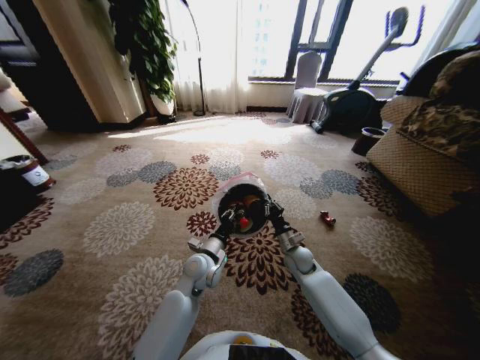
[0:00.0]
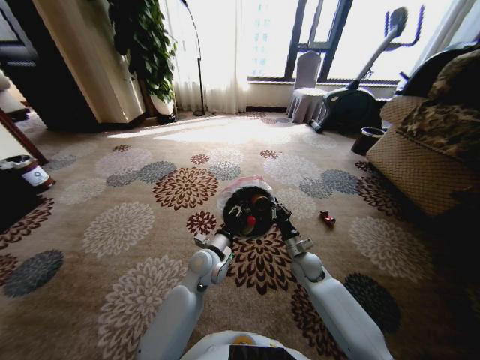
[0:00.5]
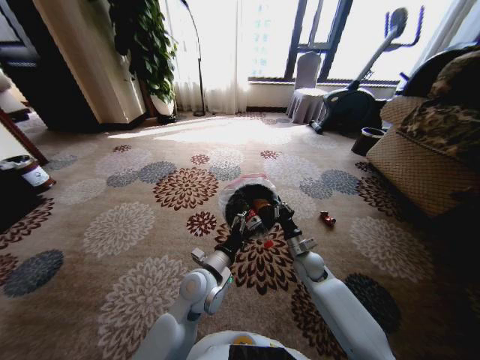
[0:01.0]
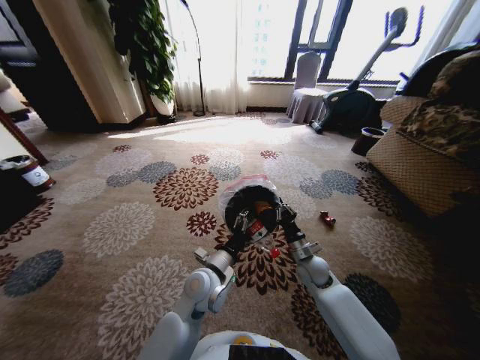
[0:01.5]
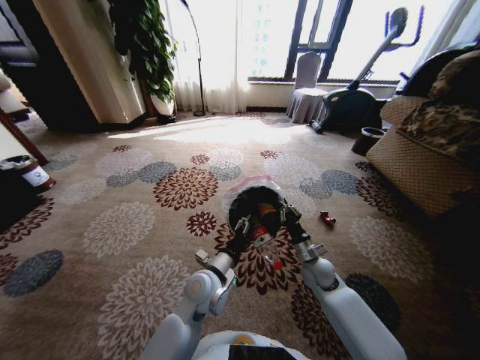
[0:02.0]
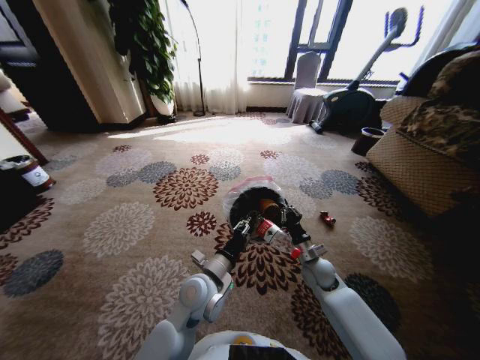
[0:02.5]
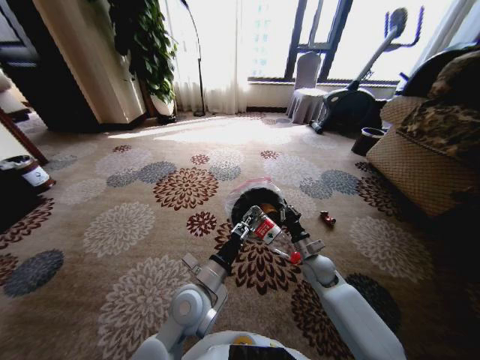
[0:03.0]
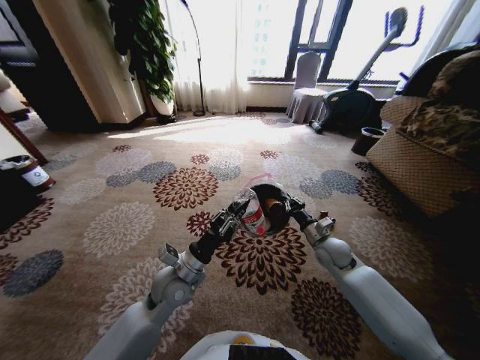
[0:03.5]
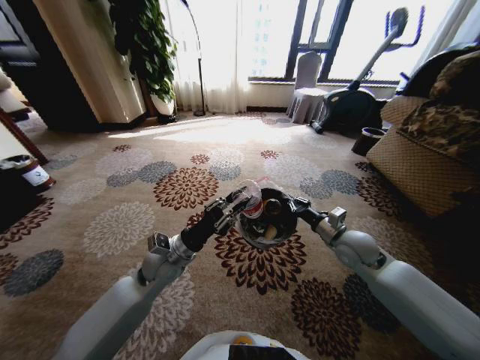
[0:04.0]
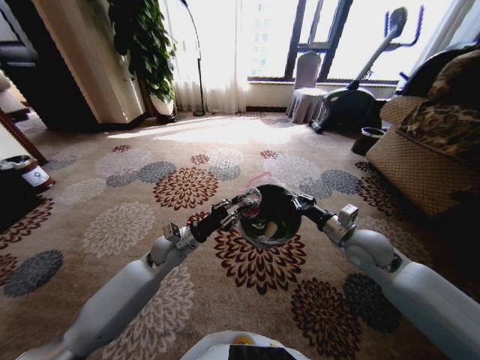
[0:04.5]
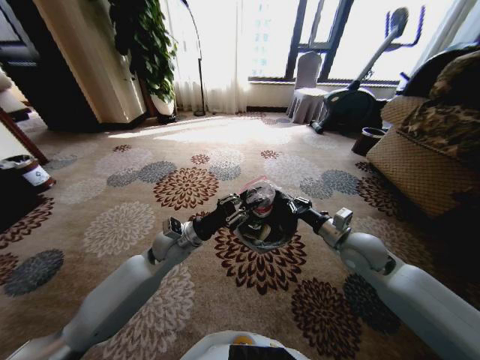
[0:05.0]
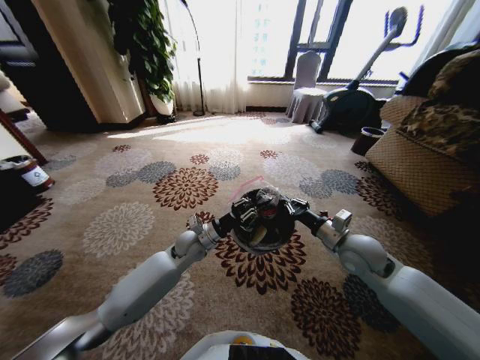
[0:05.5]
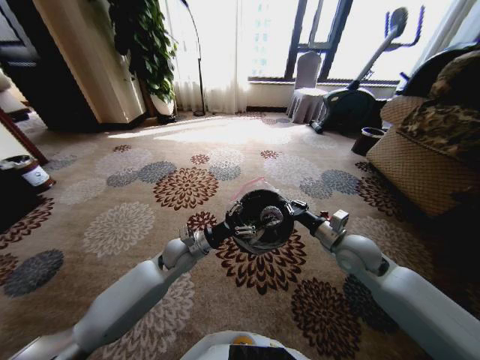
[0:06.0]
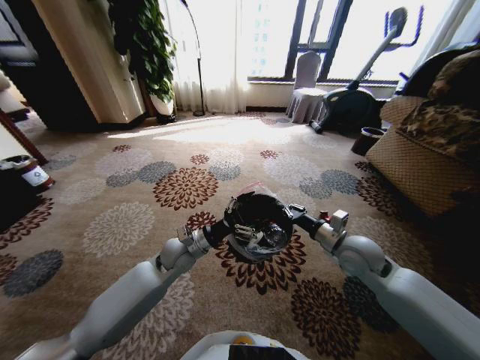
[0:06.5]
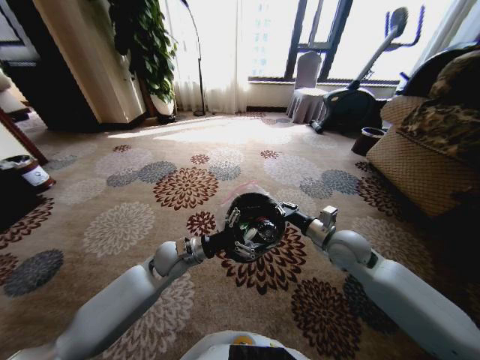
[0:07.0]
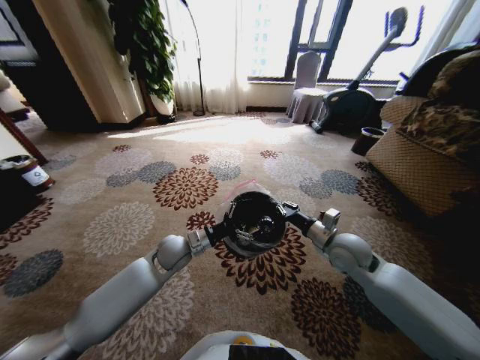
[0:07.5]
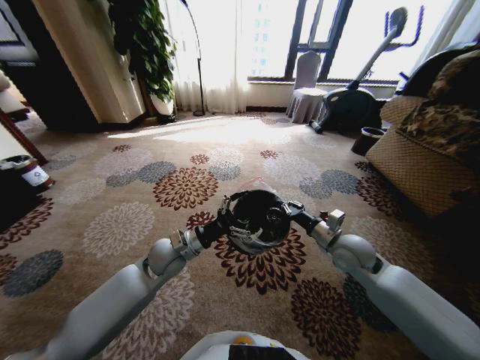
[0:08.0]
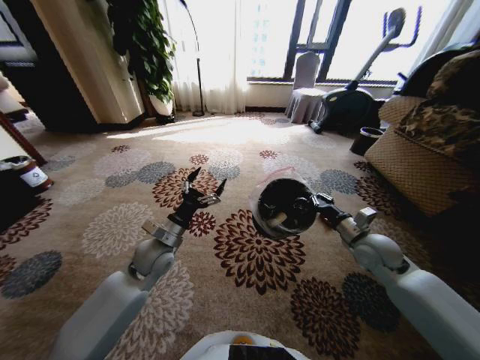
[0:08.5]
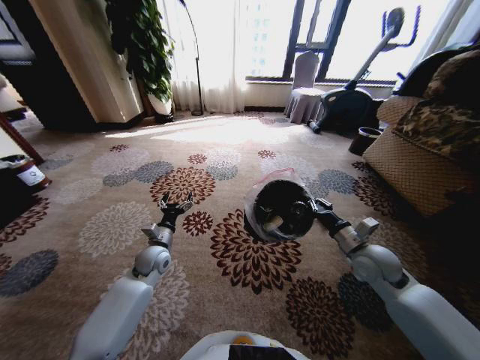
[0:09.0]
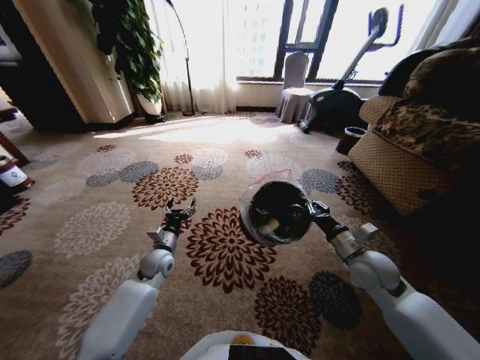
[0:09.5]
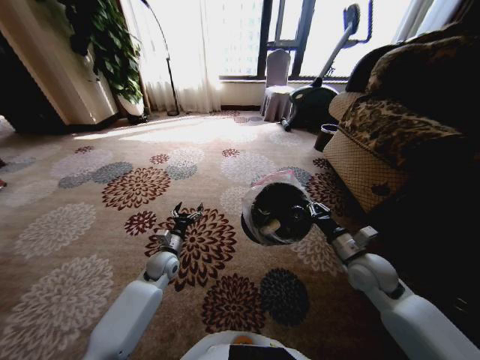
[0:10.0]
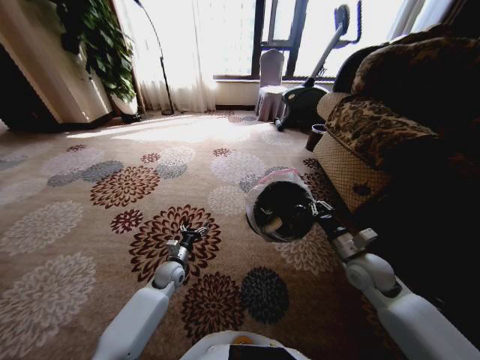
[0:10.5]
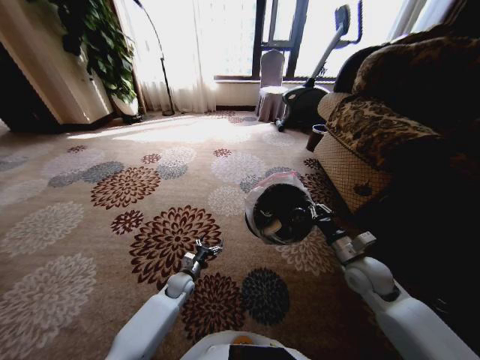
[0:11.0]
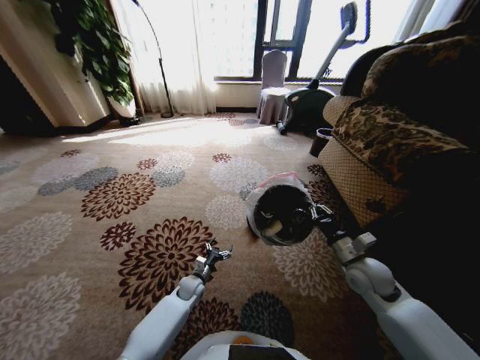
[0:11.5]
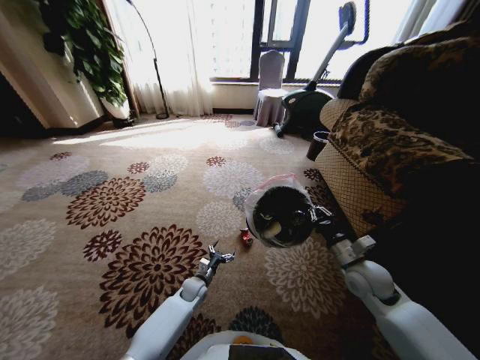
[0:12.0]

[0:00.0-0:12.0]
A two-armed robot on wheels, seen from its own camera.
Task of the whole recording: Pick up the trash from the ground and place it into the trash bin.
0:00.0 to 0:02.0: Both grippers move backward, roughly 5 cm. The left gripper opens.
0:02.0 to 0:04.0: The left gripper goes about 10 cm to the left, and closes its fingers; the right gripper is displaced upward and to the right by some 15 cm.
0:04.0 to 0:06.0: The left gripper heads forward, covering roughly 5 cm, and opens.
0:06.0 to 0:08.0: The left gripper moves approximately 5 cm.
0:08.0 to 0:10.0: The left gripper shifts about 15 cm downward and to the left. The right gripper ends up some 5 cm from where it was.
0:10.0 to 0:12.0: The left gripper is displaced downward and to the right by some 20 cm.

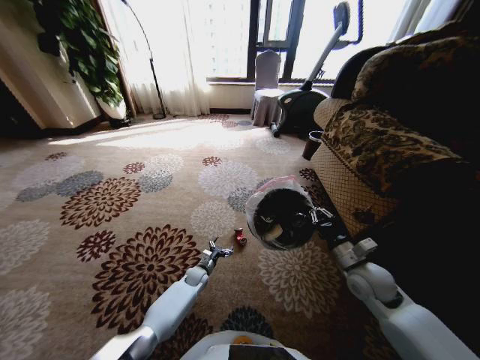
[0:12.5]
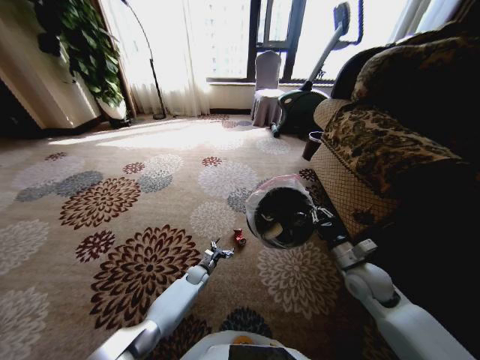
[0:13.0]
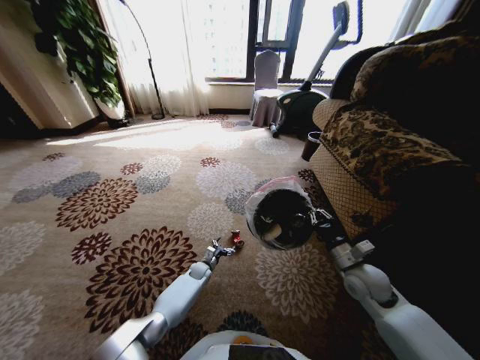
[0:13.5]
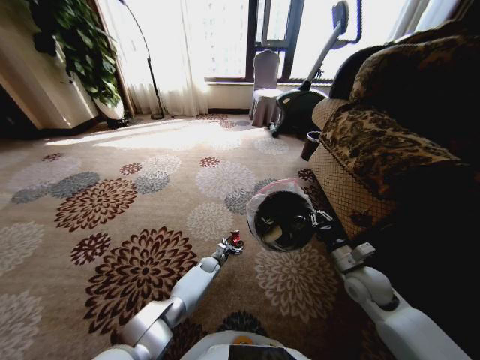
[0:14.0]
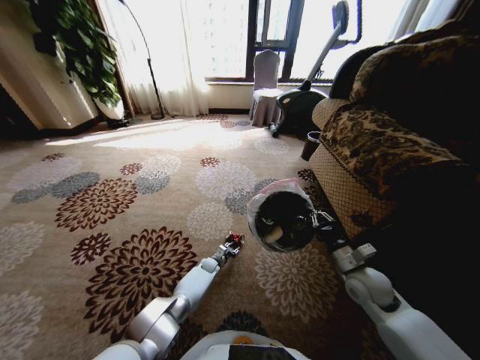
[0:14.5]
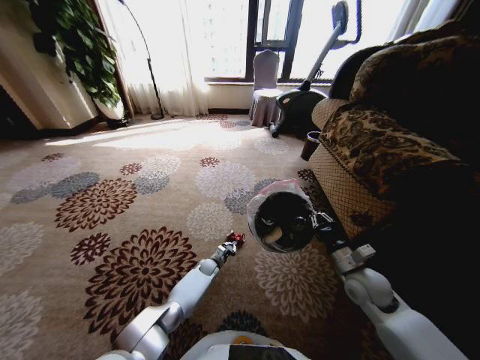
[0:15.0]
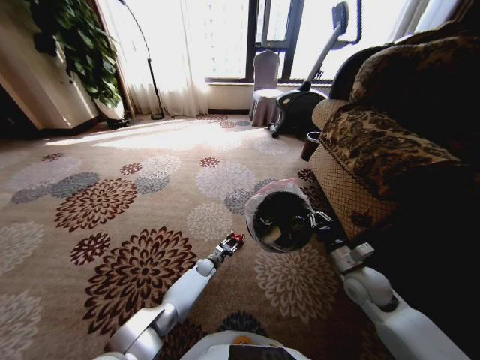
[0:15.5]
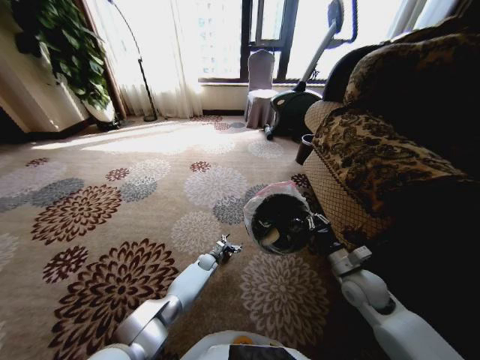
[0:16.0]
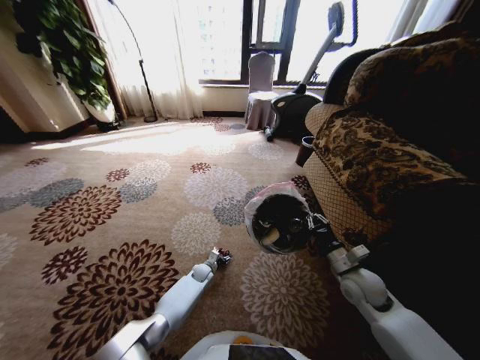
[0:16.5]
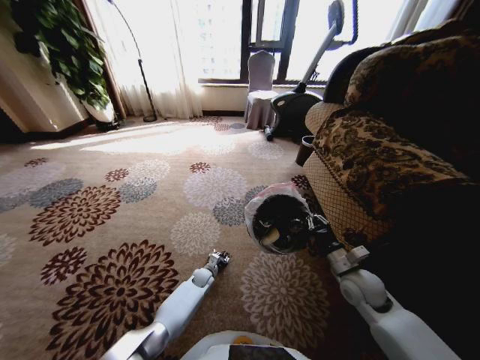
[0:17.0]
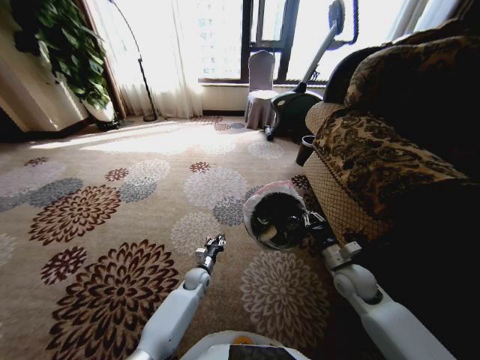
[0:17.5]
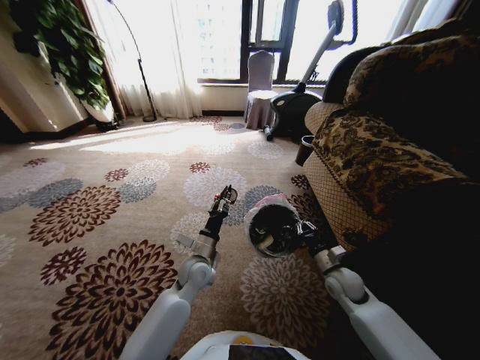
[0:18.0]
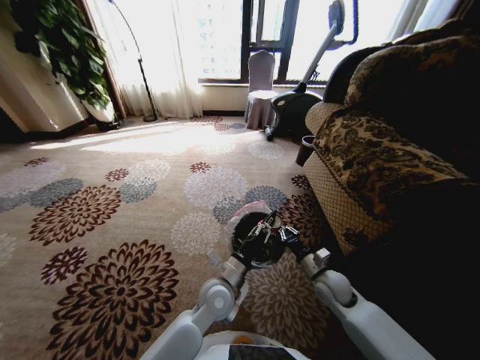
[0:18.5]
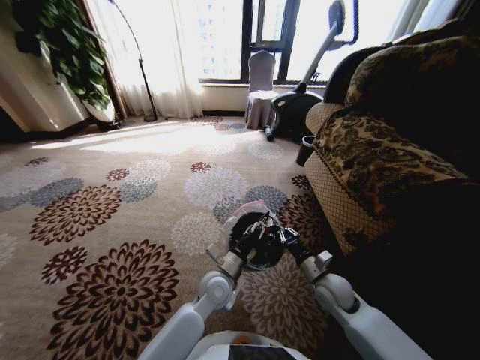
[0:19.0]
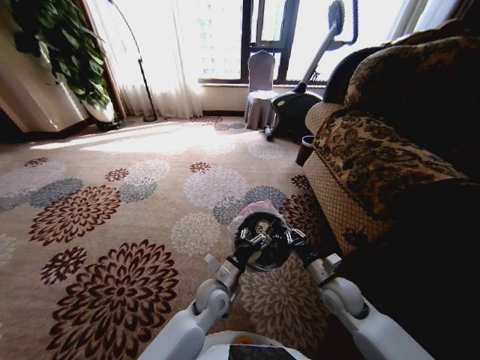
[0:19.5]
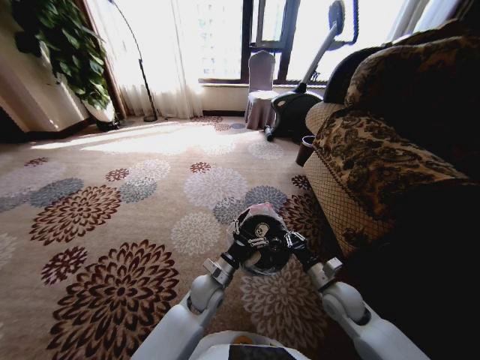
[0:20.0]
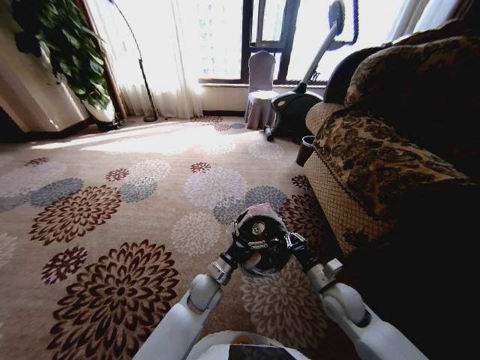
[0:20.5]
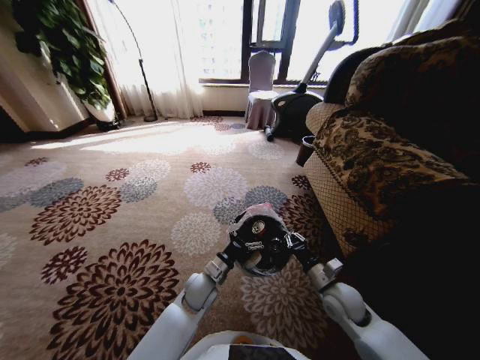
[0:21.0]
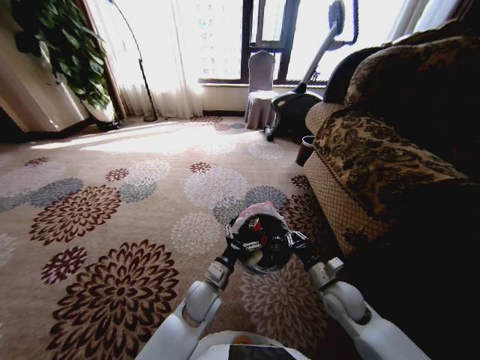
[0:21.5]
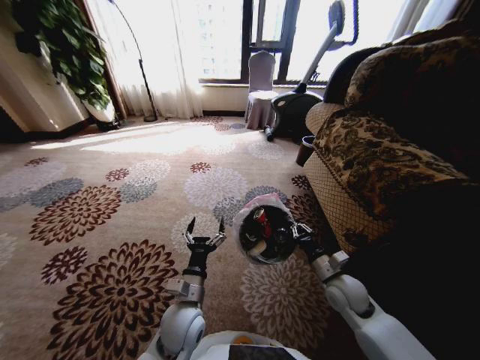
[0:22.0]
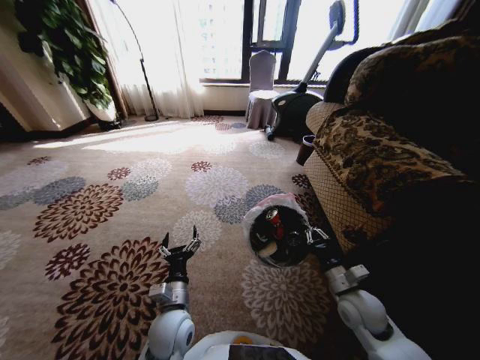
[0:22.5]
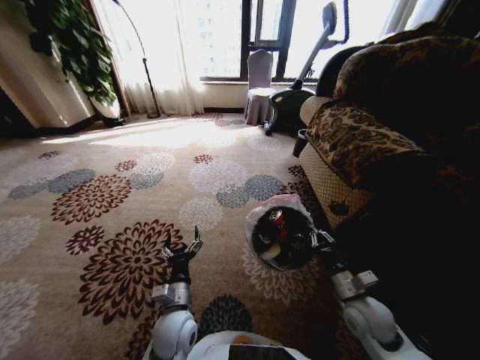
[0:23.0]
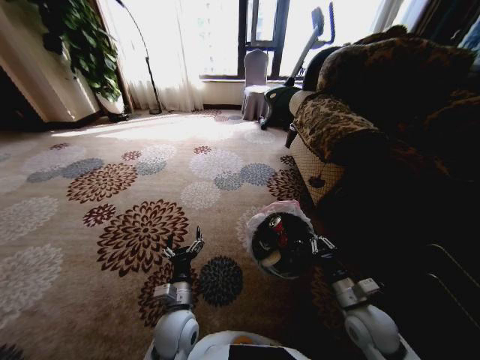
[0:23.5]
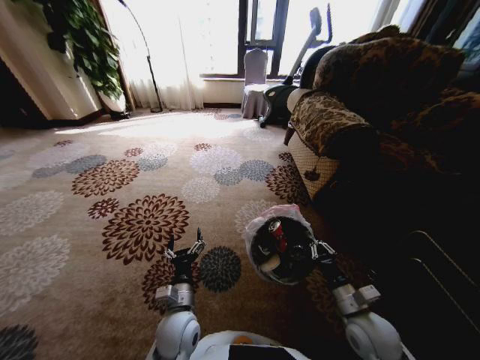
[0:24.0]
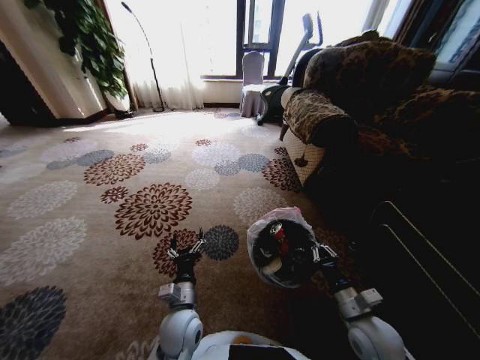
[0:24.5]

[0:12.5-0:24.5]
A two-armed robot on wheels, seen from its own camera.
Task of the whole recording: Pick up the trash from the ground and place it into the trash bin.
0:12.5 to 0:14.5: The left gripper goes roughly 5 cm forward, and closes.
0:14.5 to 0:16.5: The left gripper ends up about 5 cm from where it was, and closes and opens again.
0:16.5 to 0:18.5: The left gripper travels upward, backward and to the right by roughly 30 cm, and closes its fingers; the right gripper heads downward and to the left, covering some 10 cm.
0:18.5 to 0:20.5: The left gripper heads downward, covering approximately 5 cm, and opens its fingers.
0:20.5 to 0:22.5: The left gripper is displaced backward and to the left by roughly 10 cm.
0:22.5 to 0:24.5: The right gripper goes approximately 5 cm backward.

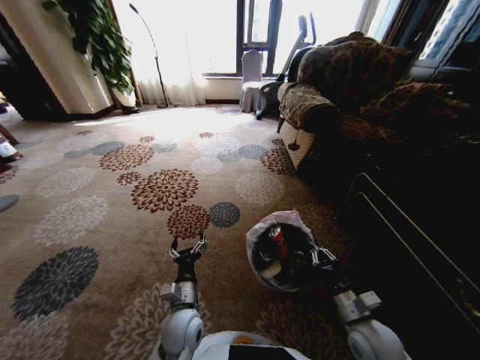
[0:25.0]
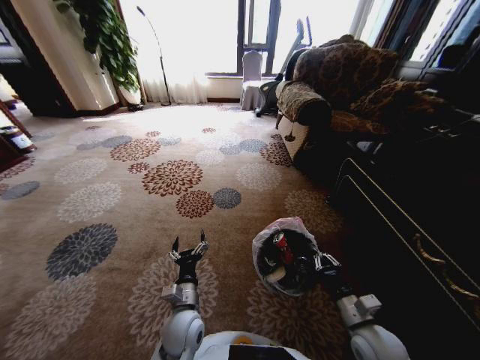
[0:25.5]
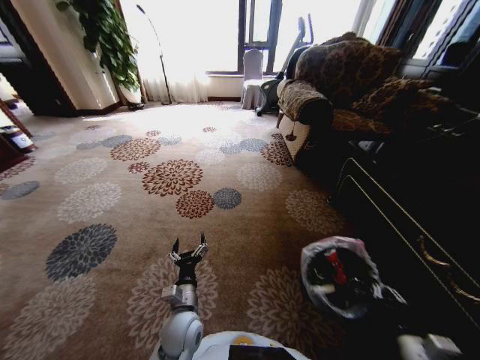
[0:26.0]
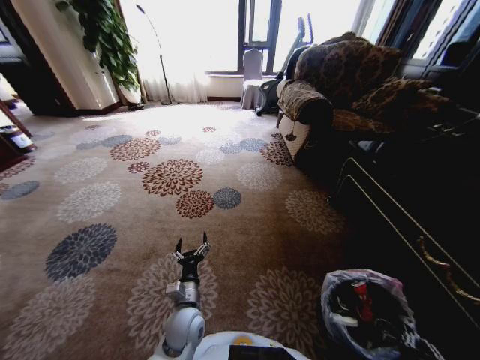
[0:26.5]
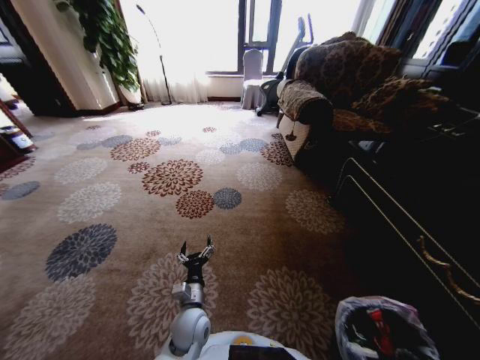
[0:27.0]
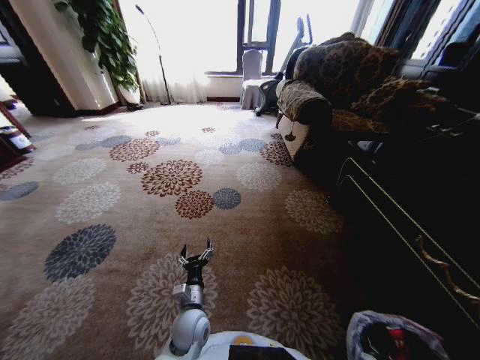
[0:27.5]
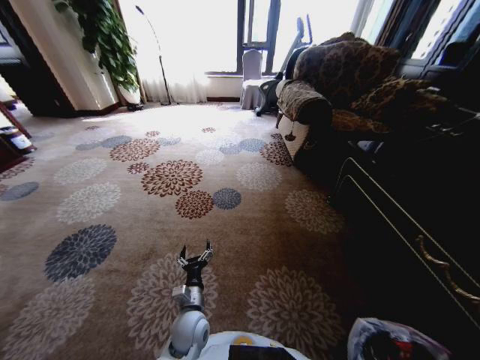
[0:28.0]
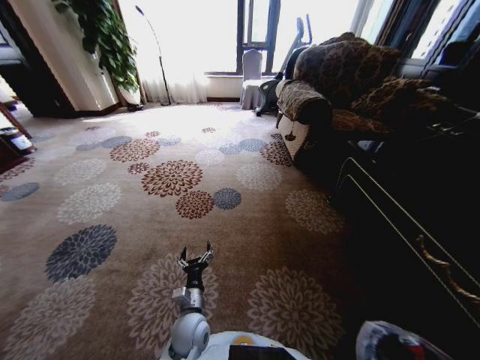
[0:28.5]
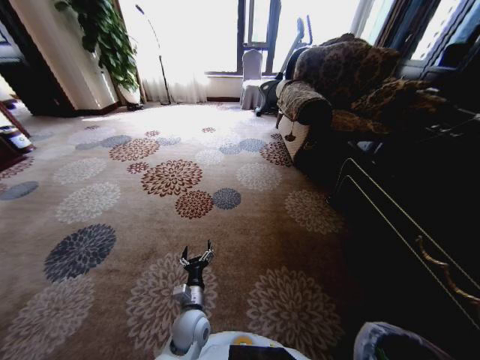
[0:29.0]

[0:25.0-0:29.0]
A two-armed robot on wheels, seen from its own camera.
Task of the whole recording: Pick up the trash from the ground and place it into the trash bin.
0:25.0 to 0:27.0: The right gripper travels backward and to the right by some 25 cm.
0:27.0 to 0:29.0: The right gripper goes approximately 5 cm backward, and opens.
